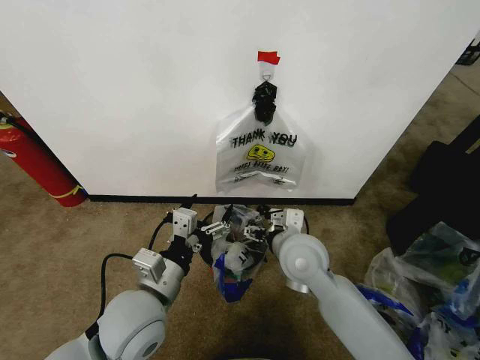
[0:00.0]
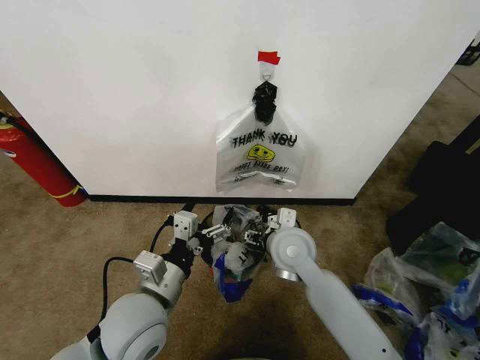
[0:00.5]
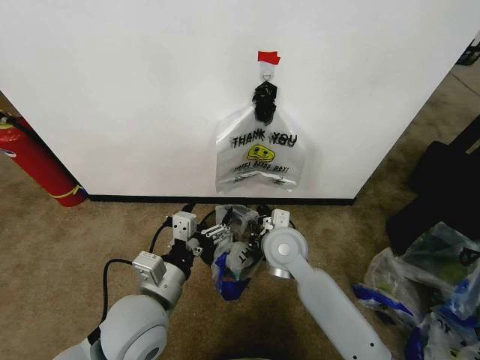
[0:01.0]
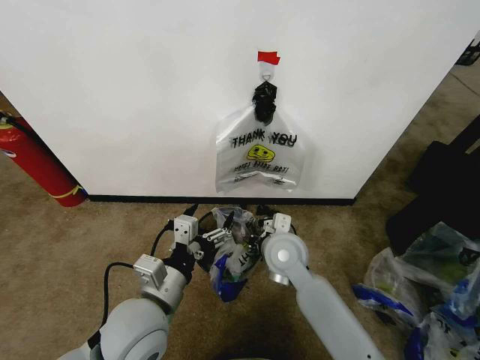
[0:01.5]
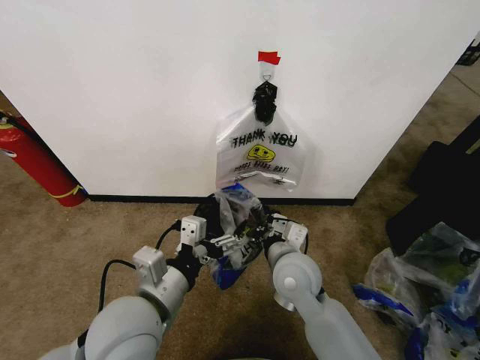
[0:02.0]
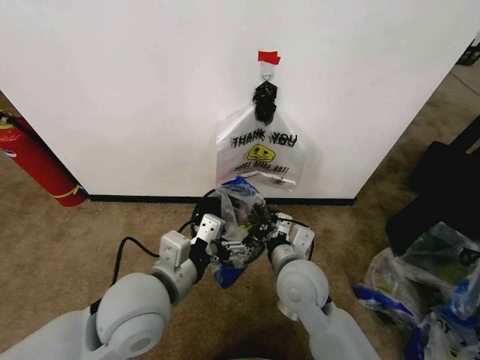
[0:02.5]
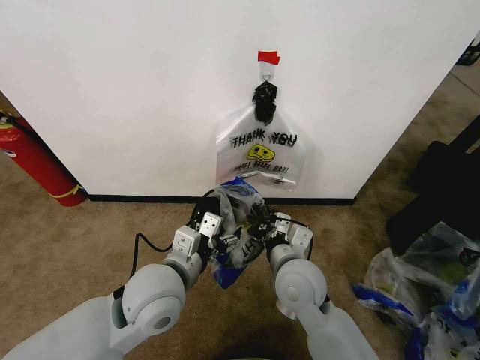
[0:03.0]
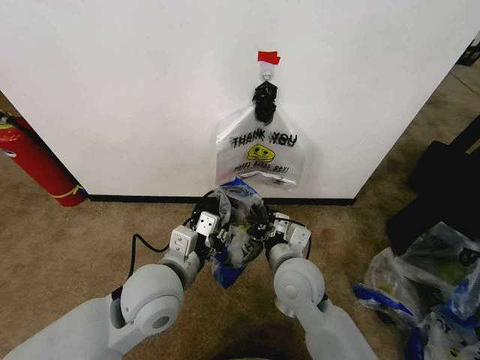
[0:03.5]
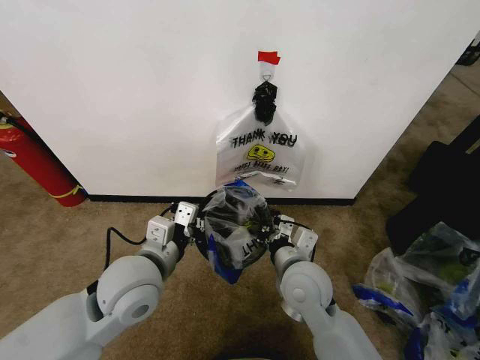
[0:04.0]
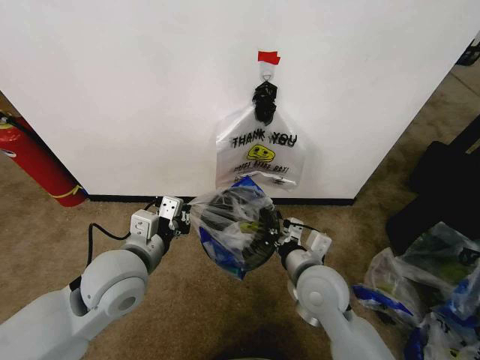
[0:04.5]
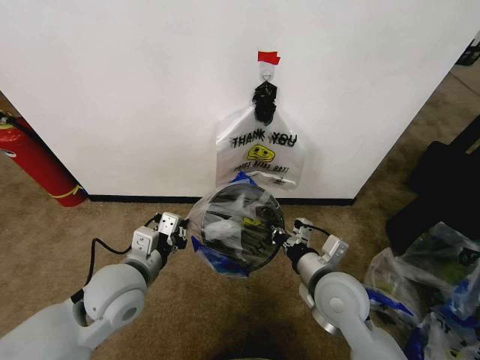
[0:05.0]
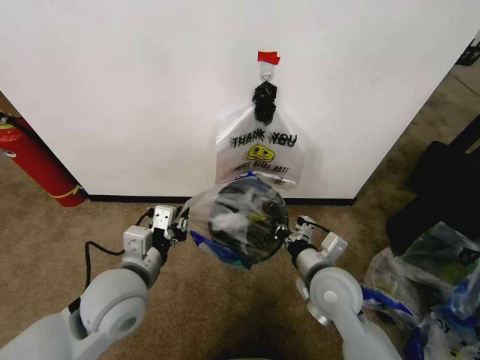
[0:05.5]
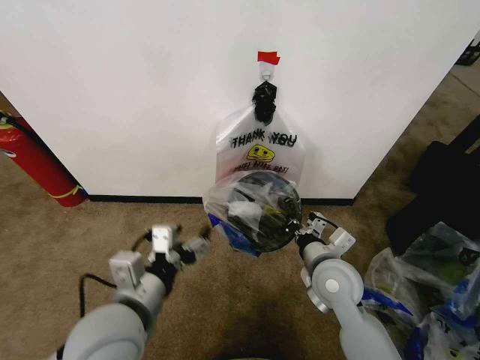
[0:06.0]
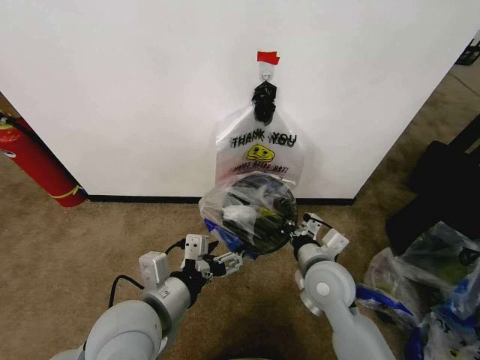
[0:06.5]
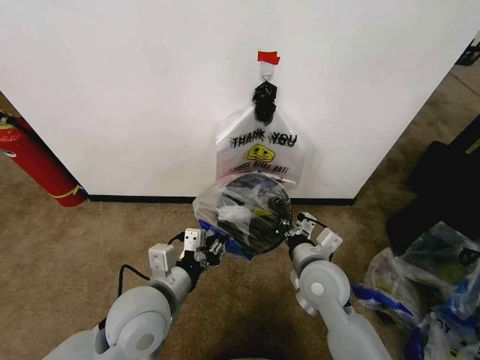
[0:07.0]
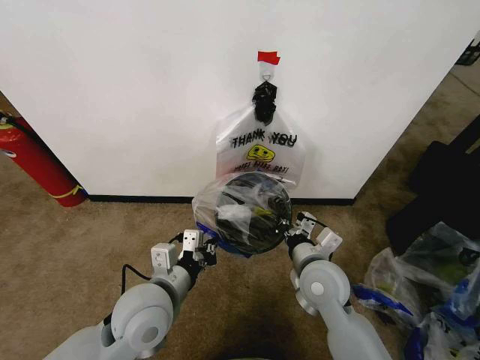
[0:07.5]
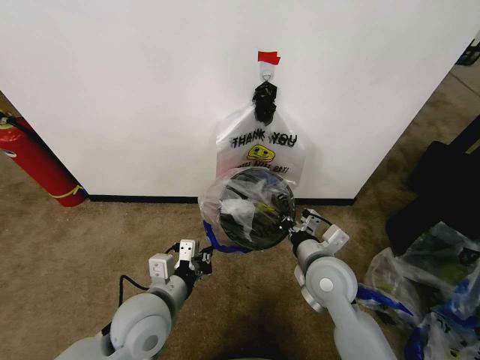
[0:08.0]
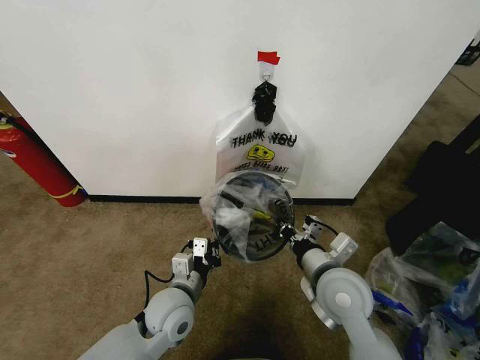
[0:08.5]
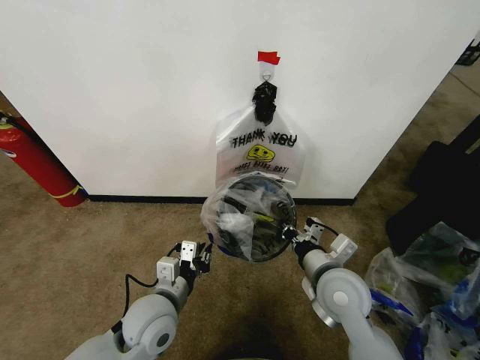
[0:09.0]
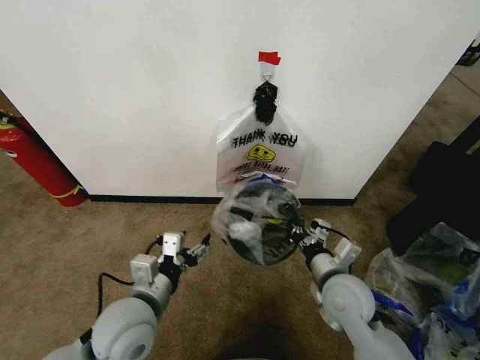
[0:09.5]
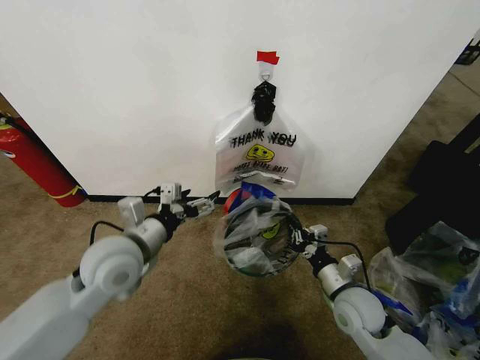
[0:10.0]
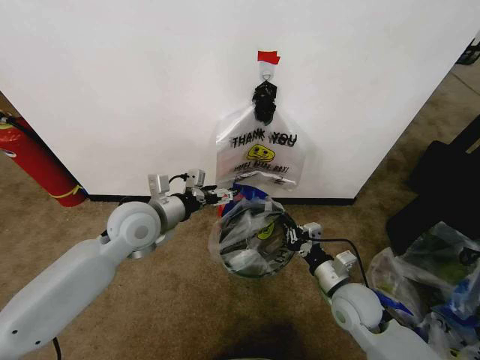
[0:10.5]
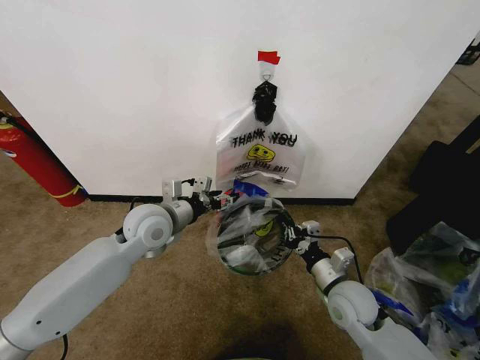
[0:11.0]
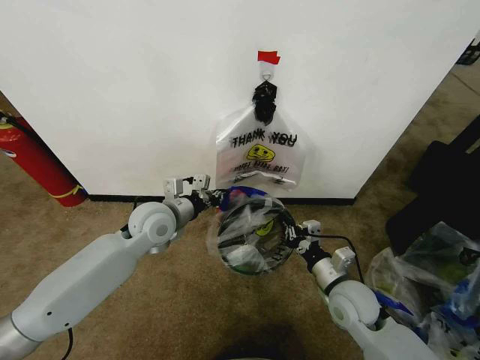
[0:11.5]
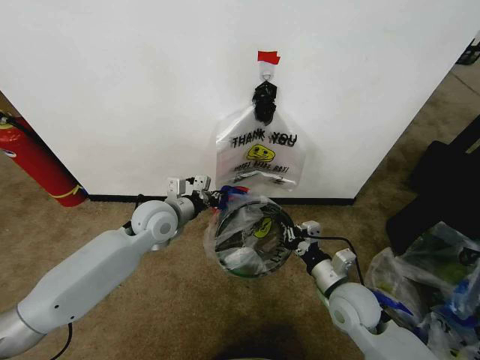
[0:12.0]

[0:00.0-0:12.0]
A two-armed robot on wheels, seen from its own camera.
Task of the whole recording: Pick up the garbage bag from the wall and place it over the trash bin.
0:00.0 to 0:02.0: The right gripper closes up.
0:02.0 to 0:04.0: The left gripper is displaced forward by roughly 5 cm, and closes.
0:04.0 to 0:06.0: The left gripper moves backward, approximately 10 cm, and opens up. The right gripper travels to the right by approximately 5 cm.
0:06.0 to 0:08.0: The left gripper is displaced downward by some 10 cm, and closes.
0:08.0 to 0:10.0: The left gripper is displaced upward and forward by some 10 cm, and opens. The right gripper heads downward and to the right, covering some 10 cm.
0:10.0 to 0:12.0: The left gripper moves forward, about 15 cm, and closes up.

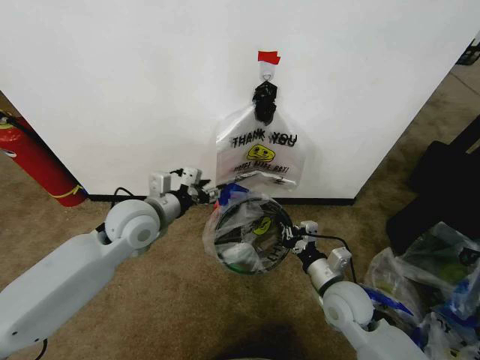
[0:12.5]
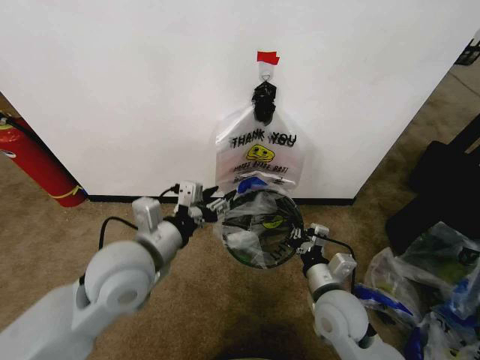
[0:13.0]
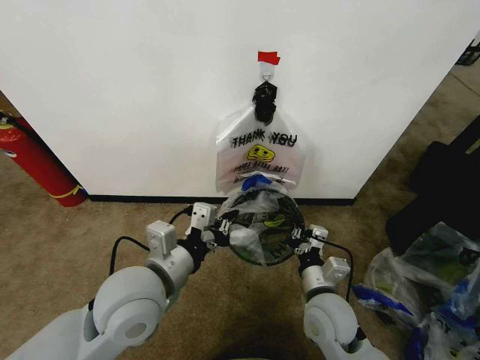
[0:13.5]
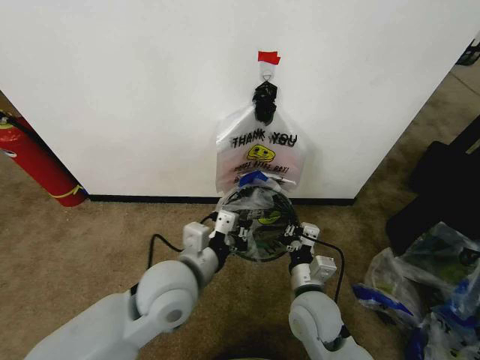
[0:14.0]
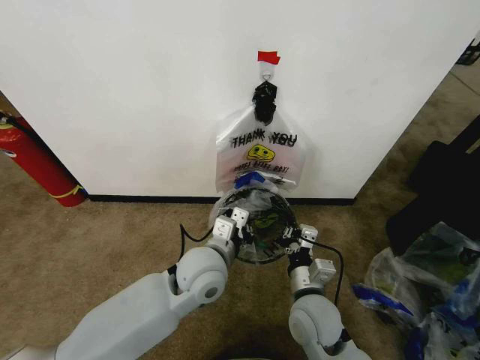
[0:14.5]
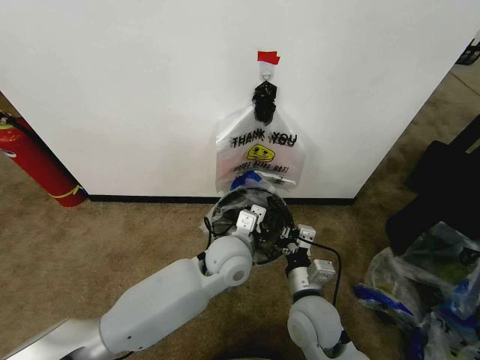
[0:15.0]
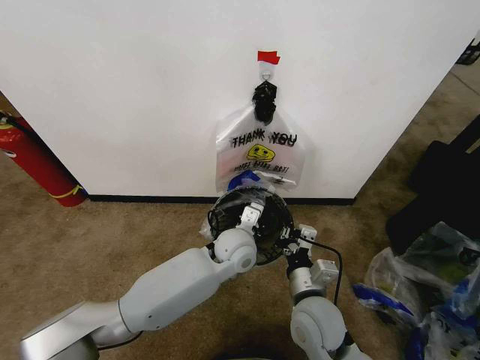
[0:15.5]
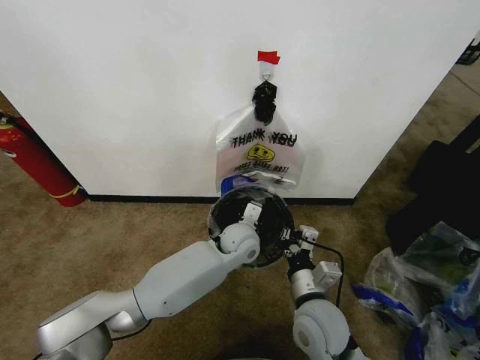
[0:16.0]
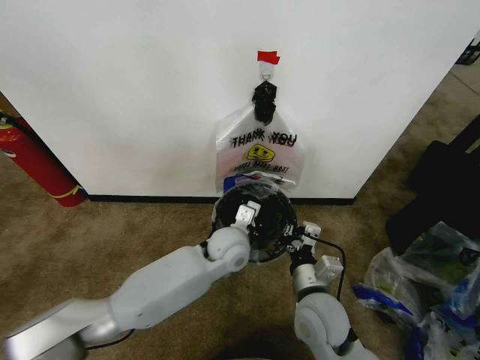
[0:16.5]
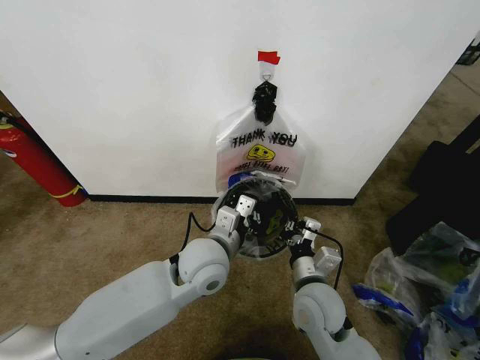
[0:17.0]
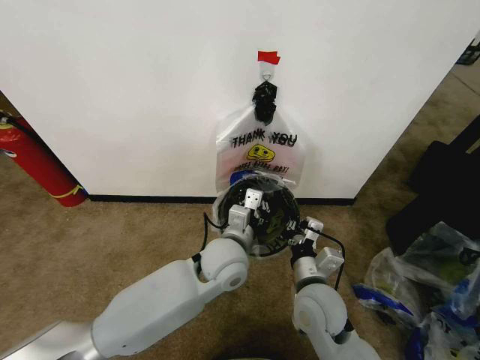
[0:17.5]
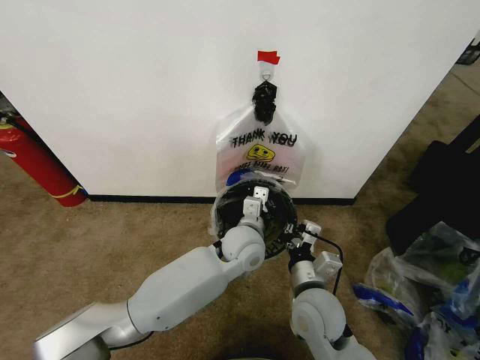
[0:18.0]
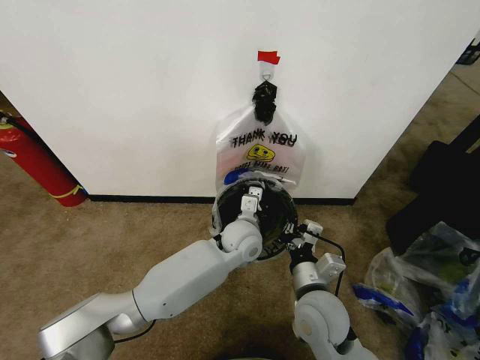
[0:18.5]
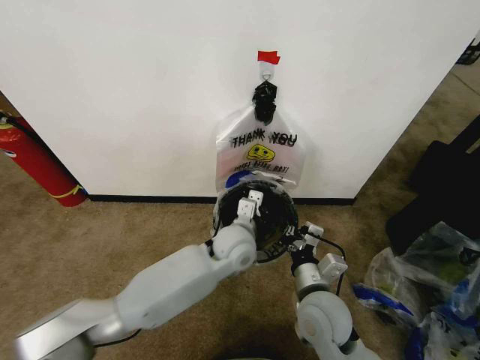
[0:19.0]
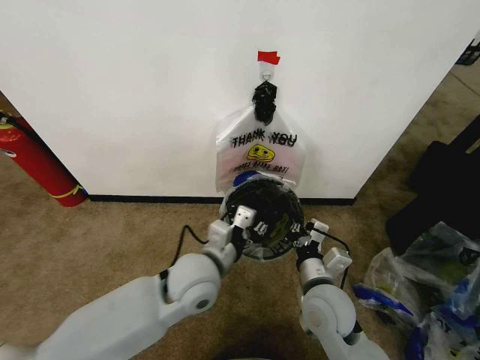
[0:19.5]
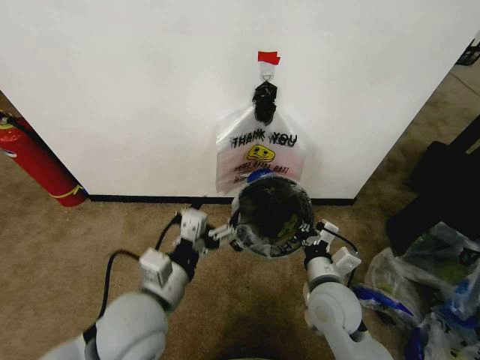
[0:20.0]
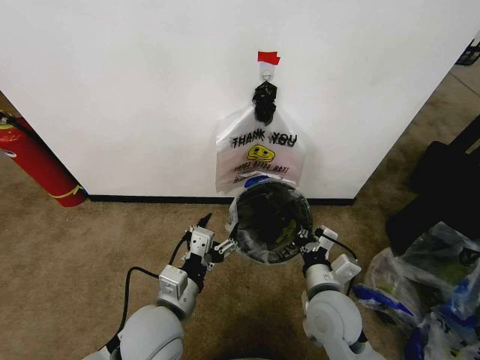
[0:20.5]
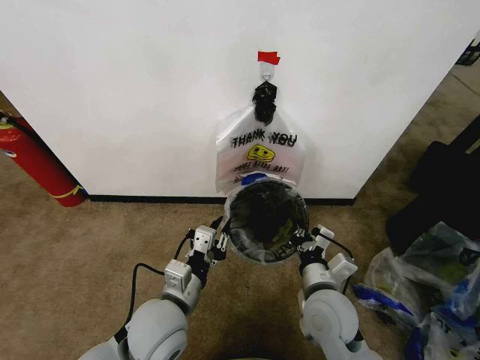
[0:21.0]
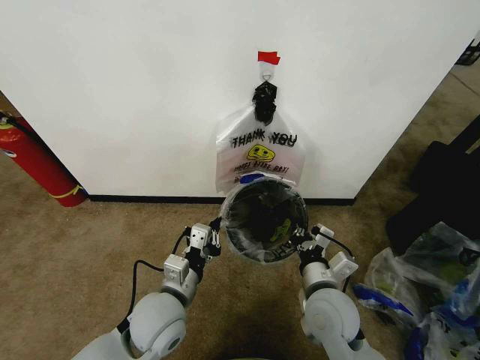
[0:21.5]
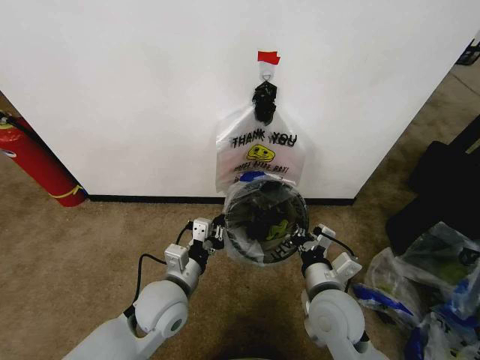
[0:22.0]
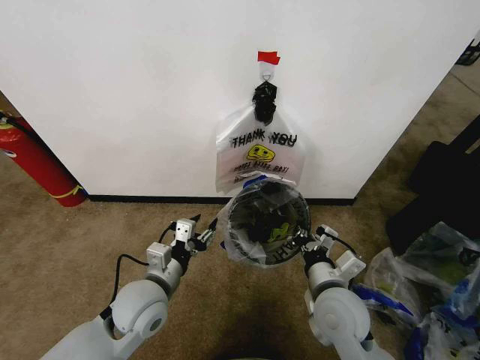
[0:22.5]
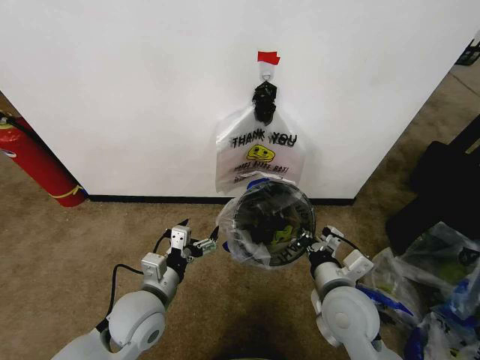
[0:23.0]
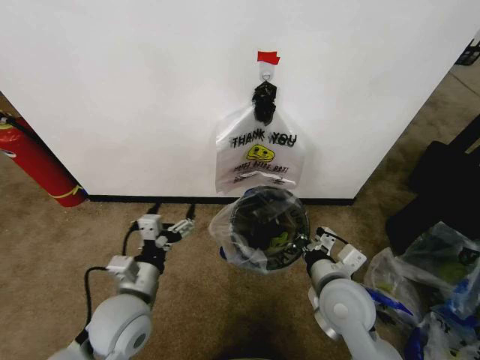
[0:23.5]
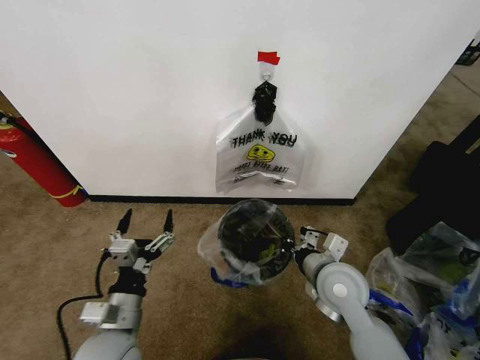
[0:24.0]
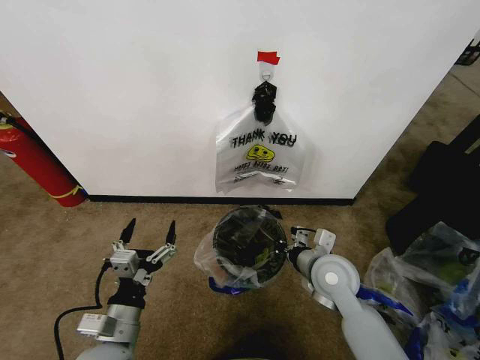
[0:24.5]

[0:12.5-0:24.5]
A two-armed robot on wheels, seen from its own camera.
Task of the whole recording: Pick up the garbage bag from the wall and place it over the trash bin.
0:12.5 to 0:14.5: The right gripper is displaced to the left by some 10 cm, while the left gripper shifts about 15 cm to the right, backward and downward, and closes.
0:14.5 to 0:16.5: The left gripper is displaced forward, to the right and downward by some 10 cm.
0:16.5 to 0:18.5: The left gripper moves some 10 cm backward and comes back.
0:18.5 to 0:20.5: The left gripper shifts about 25 cm backward and to the left, and opens up.
0:20.5 to 0:22.5: The left gripper goes roughly 5 cm forward, and closes up.
0:22.5 to 0:24.5: The left gripper heads backward, covering about 10 cm, and opens. The right gripper moves forward, roughly 5 cm.

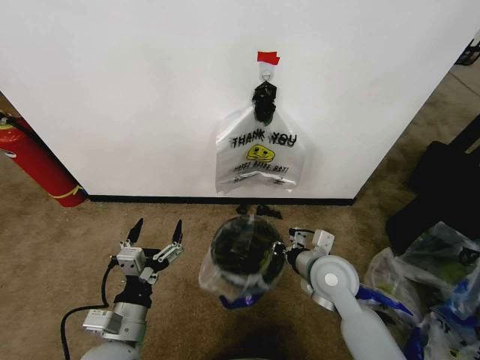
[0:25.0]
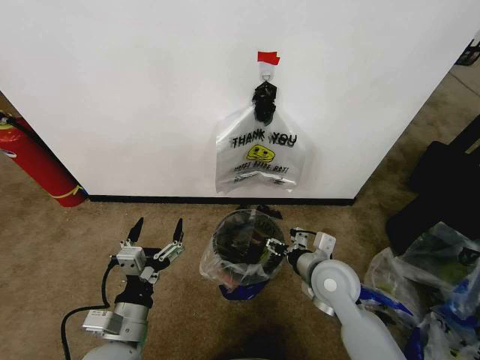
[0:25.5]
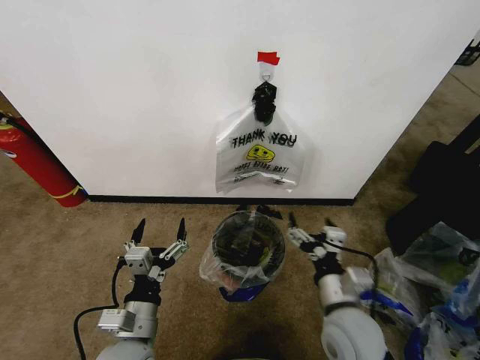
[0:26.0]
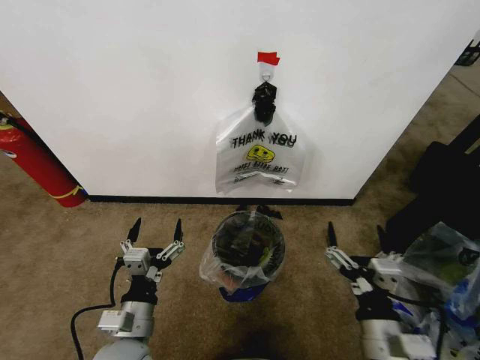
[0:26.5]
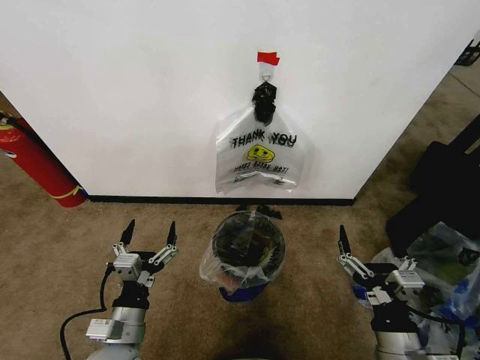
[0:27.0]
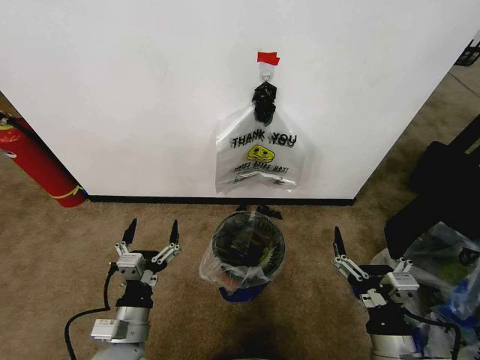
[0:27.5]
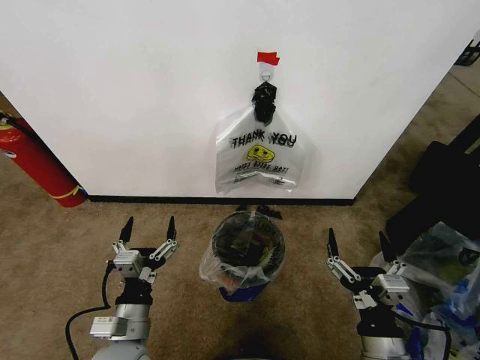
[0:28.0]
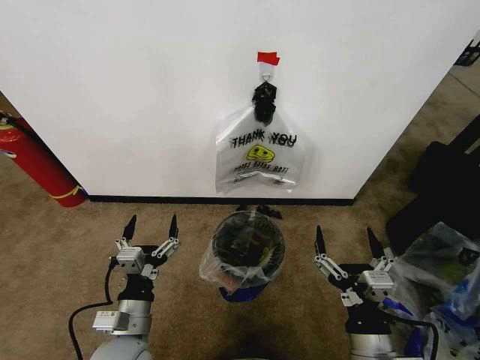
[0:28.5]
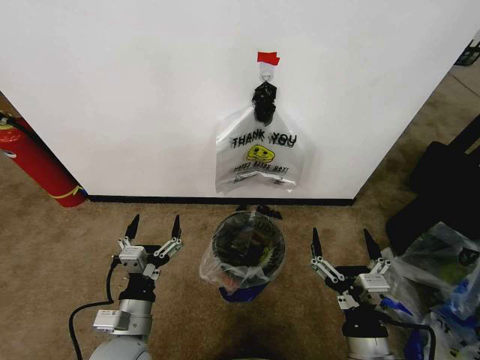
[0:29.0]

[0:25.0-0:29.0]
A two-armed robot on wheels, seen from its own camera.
Task of the whole recording: Pick up the garbage bag from the wall and place it over the trash bin.
0:25.0 to 0:27.0: The right gripper shifts approximately 20 cm backward, and opens its fingers.
0:27.0 to 0:29.0: The right gripper travels to the left by some 5 cm.
